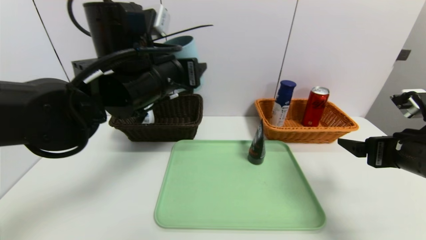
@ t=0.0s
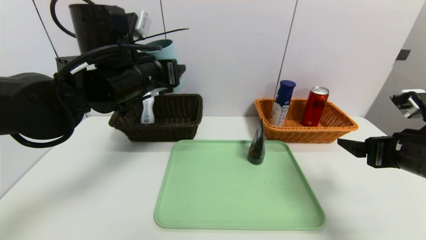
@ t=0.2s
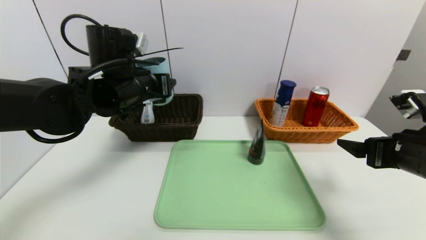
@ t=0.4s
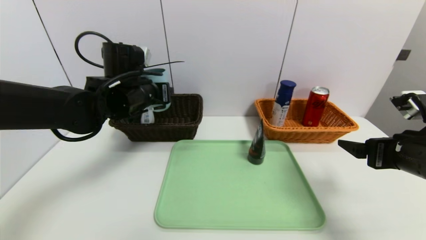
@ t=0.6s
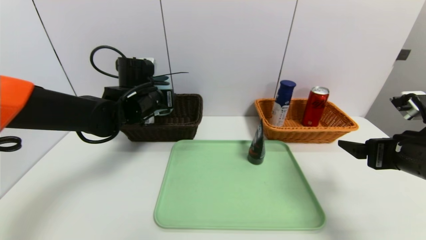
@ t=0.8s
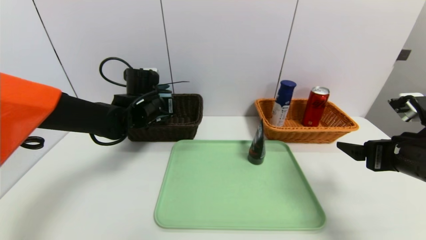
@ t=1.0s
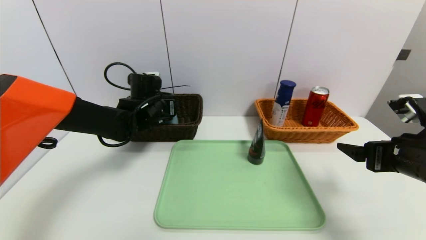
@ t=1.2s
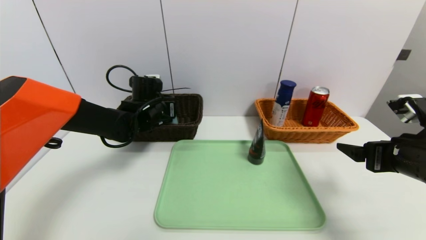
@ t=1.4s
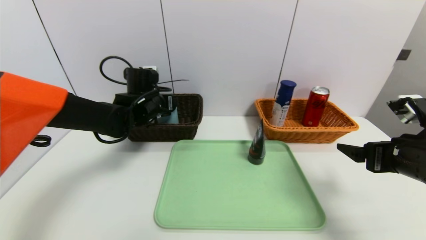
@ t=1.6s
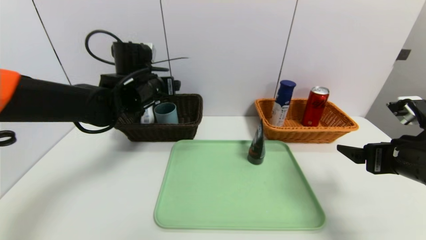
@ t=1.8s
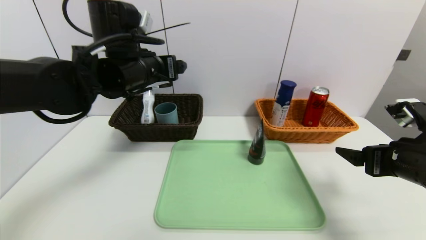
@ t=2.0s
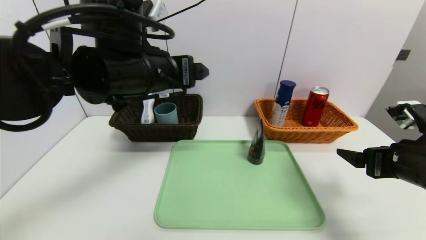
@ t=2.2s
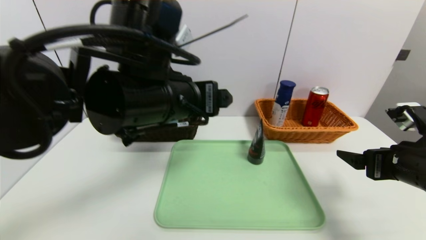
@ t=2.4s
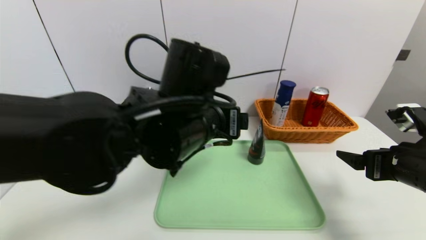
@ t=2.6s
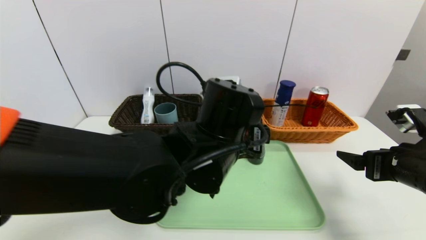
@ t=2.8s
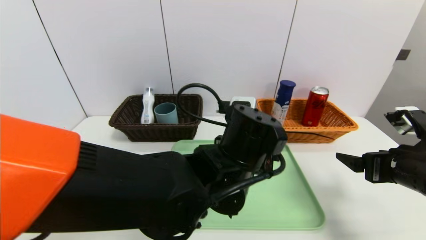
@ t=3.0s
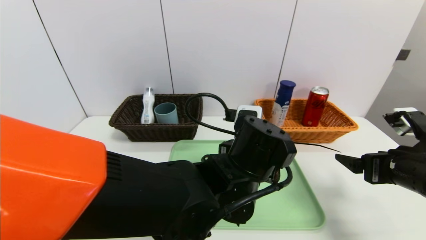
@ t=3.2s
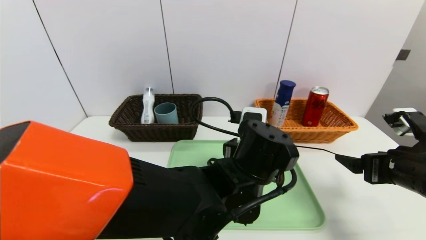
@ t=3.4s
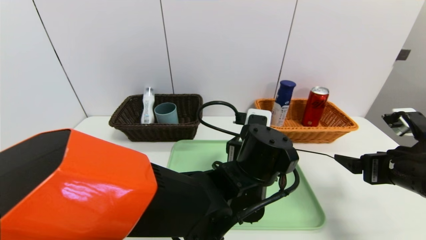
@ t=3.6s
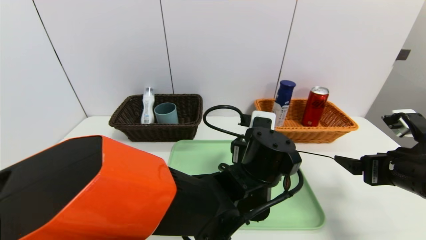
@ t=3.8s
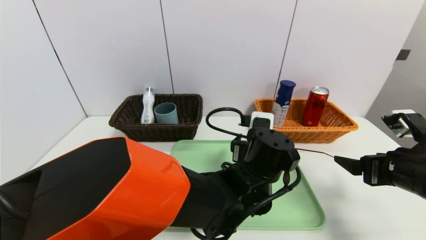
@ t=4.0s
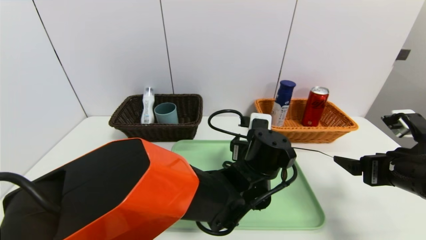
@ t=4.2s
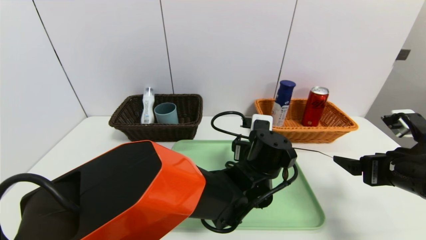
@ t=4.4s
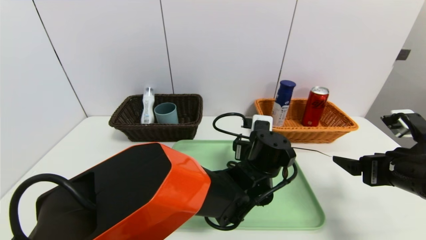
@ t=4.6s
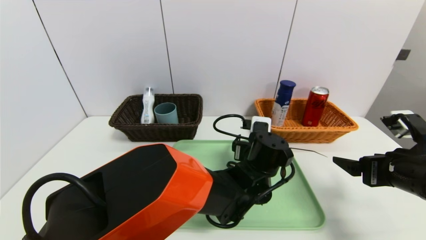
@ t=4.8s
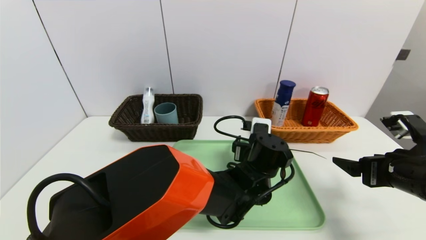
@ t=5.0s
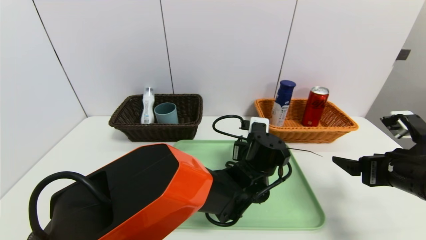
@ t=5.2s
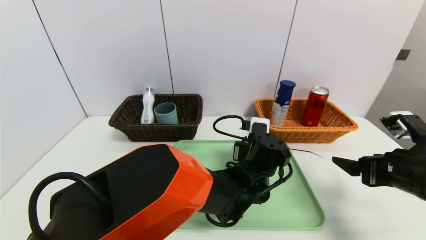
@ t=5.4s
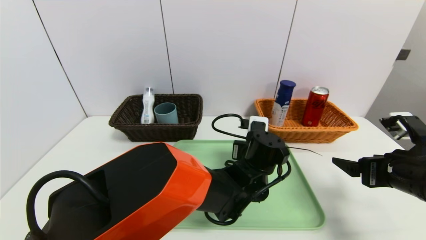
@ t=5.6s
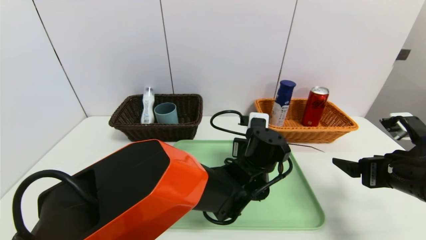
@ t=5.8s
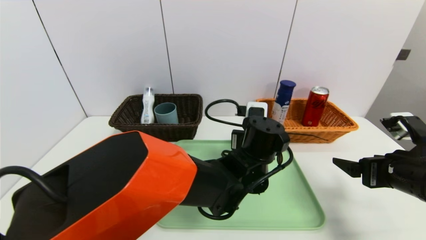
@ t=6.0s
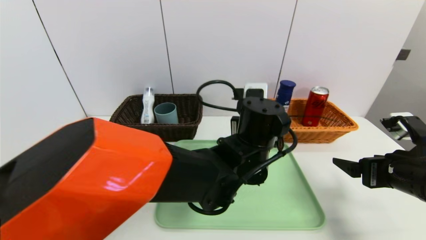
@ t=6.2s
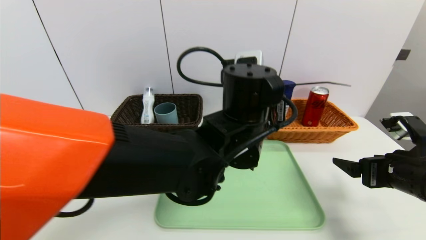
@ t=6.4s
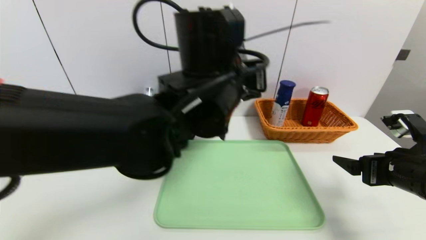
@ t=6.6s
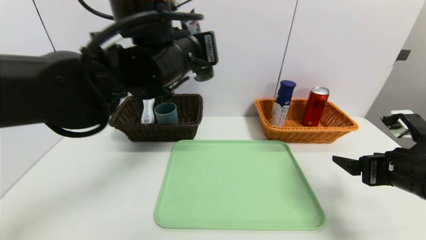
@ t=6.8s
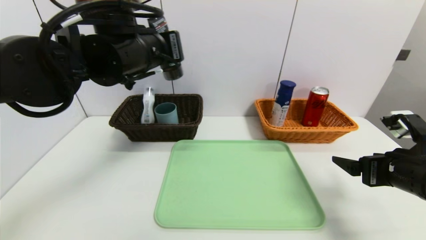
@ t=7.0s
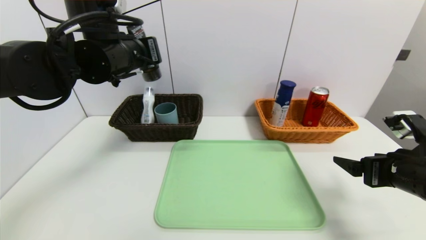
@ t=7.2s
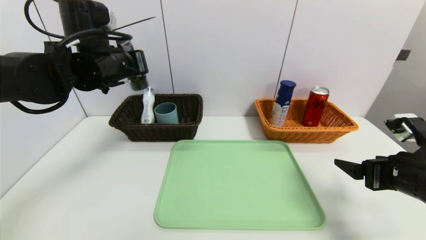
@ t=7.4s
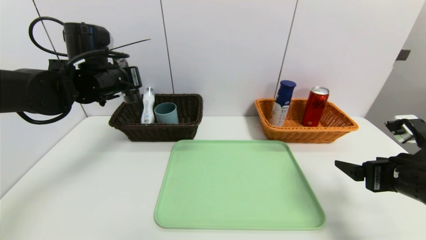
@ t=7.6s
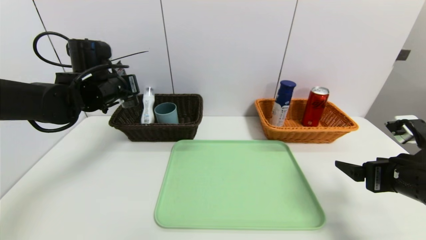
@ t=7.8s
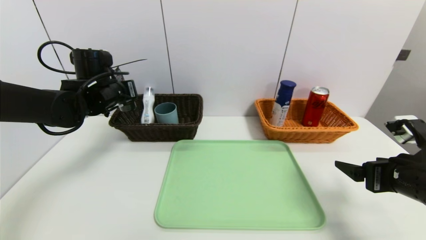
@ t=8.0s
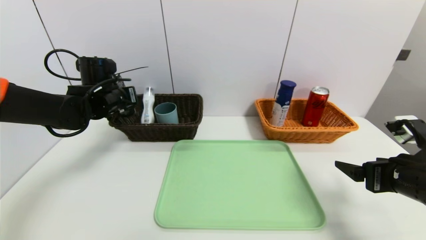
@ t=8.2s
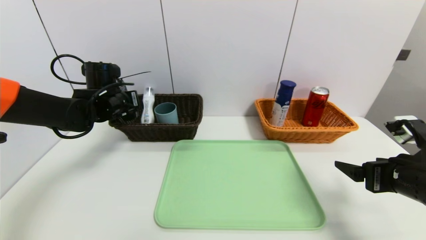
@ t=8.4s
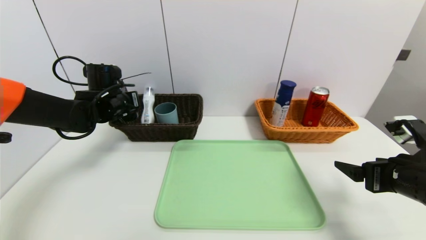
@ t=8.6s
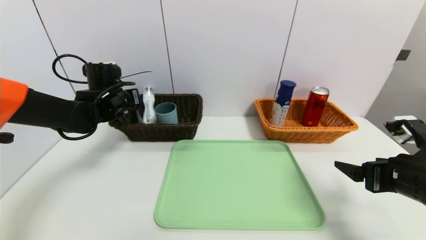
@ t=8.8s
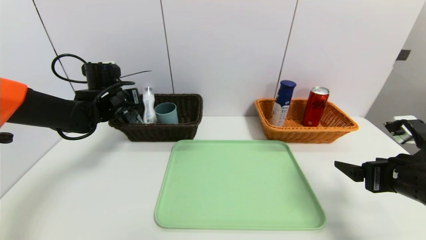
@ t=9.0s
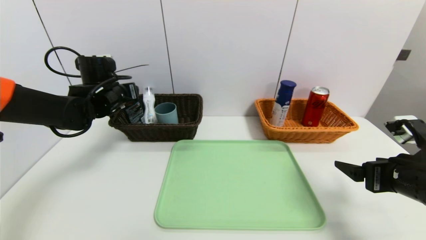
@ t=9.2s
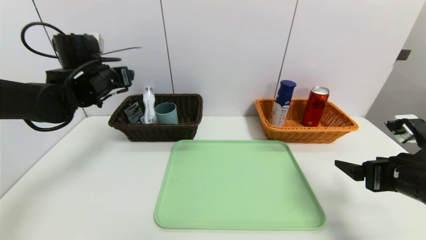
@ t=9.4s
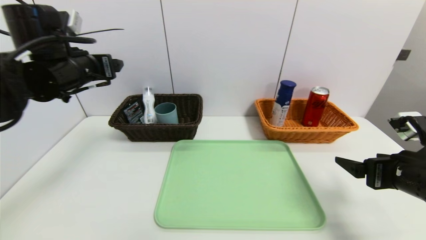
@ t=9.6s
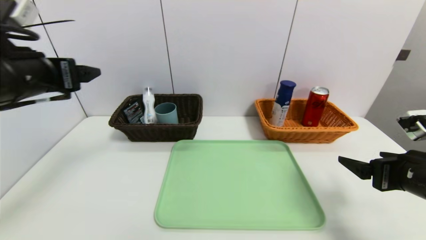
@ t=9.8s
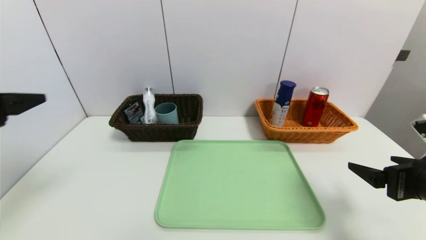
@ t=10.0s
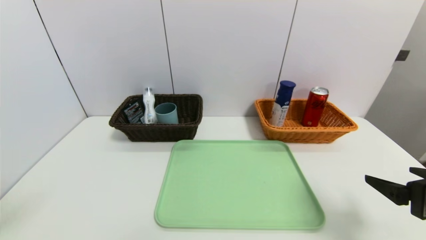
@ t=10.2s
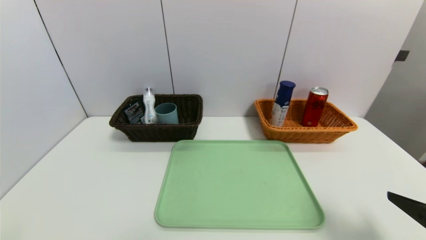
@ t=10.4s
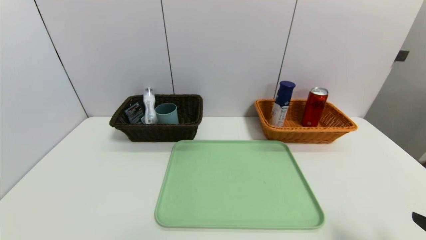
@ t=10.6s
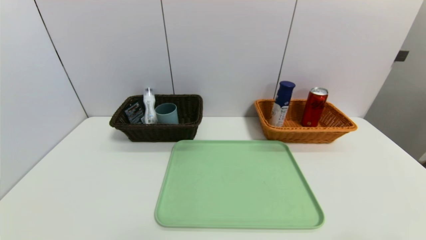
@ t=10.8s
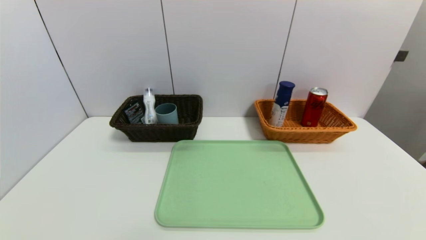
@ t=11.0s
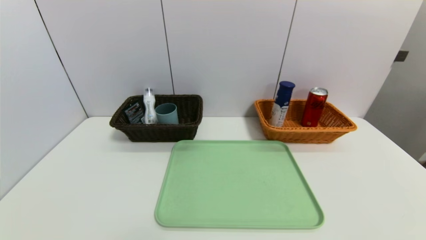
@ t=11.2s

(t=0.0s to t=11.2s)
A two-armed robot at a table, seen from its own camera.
Task of the whole recording: place the food in the right basket with the right gripper, and place the non food items in the left basket with the left gripper.
Step, t=1.8s - t=9.2s: Grasp the soft cleanser and put it in the left basket.
t=0.0s - t=1.6s: The left gripper goes roughly 15 cm forward and downward.
t=1.6s - t=3.2s: The left gripper is displaced to the right and backward by about 25 cm.
t=3.2s - t=4.8s: The left gripper moves downward, forward and to the right, approximately 10 cm.
t=4.8s - t=6.4s: The left gripper moves upward, some 15 cm, and closes.
t=6.4s - t=8.0s: The left gripper is displaced to the left and forward by roughly 30 cm.
t=8.0s - t=9.6s: The left gripper goes about 10 cm backward and upward, and opens up.
t=9.6s - t=11.2s: The left gripper travels backward and downward by approximately 40 cm, while the right gripper travels backward by approximately 20 cm.
